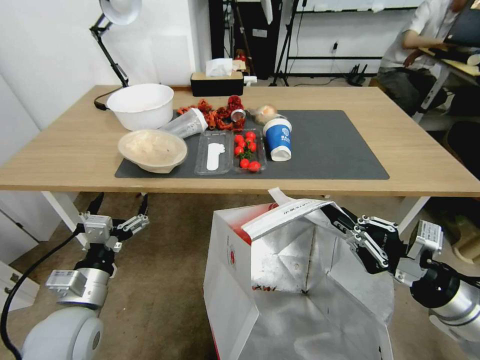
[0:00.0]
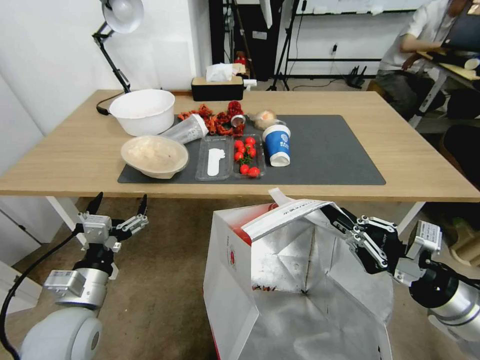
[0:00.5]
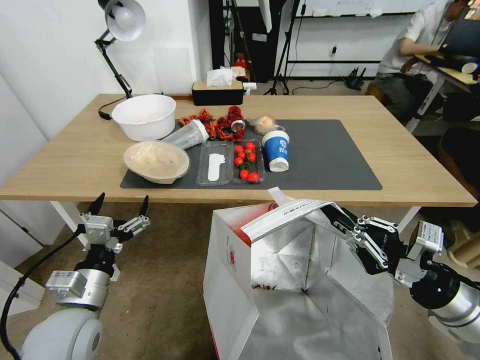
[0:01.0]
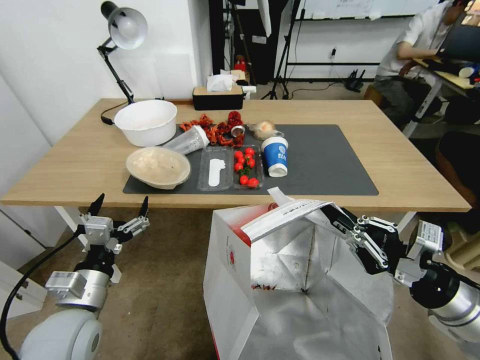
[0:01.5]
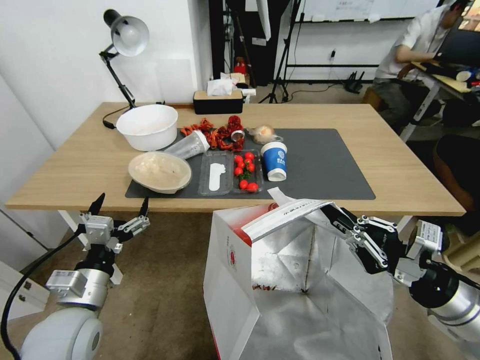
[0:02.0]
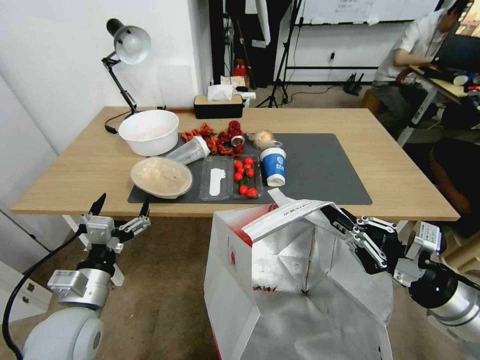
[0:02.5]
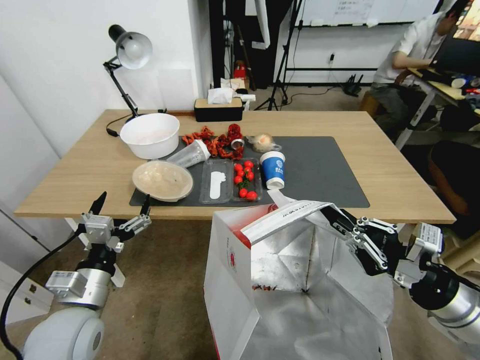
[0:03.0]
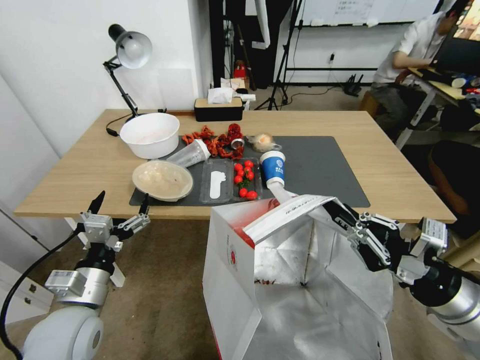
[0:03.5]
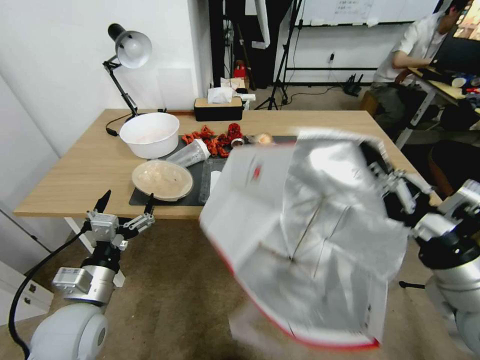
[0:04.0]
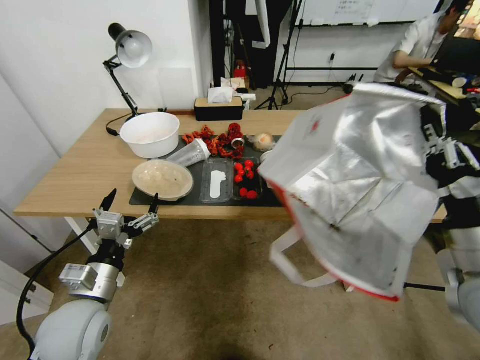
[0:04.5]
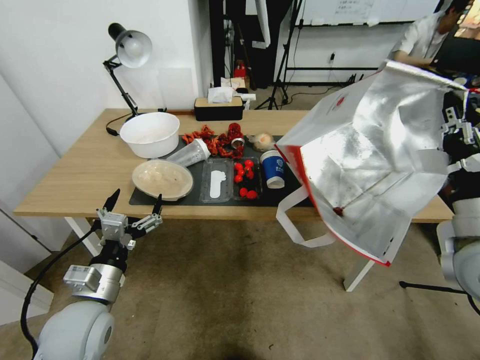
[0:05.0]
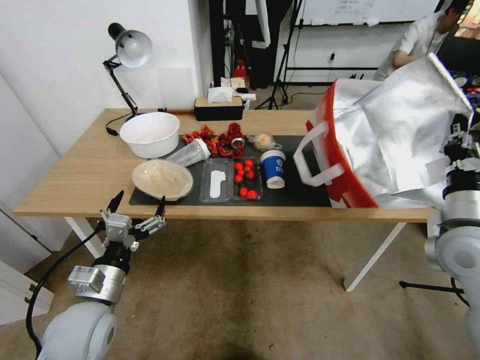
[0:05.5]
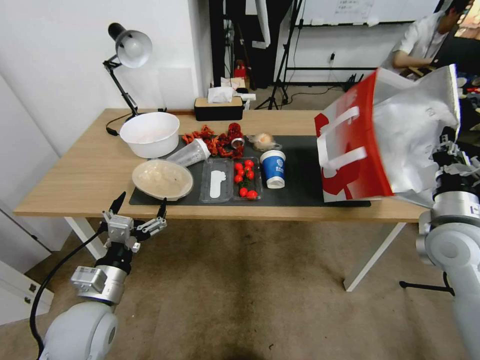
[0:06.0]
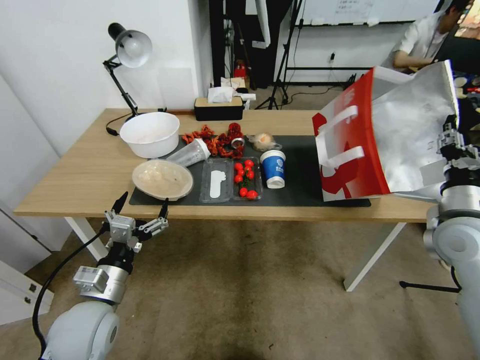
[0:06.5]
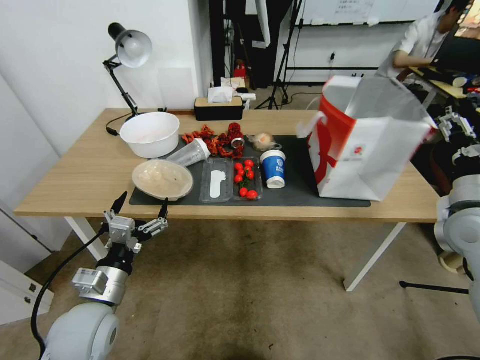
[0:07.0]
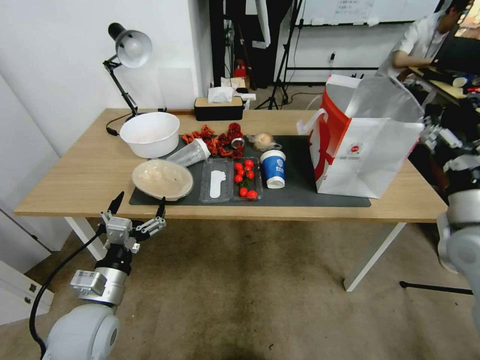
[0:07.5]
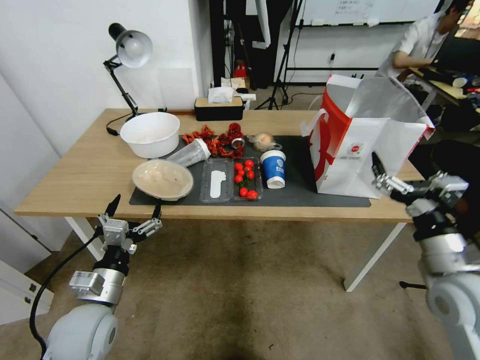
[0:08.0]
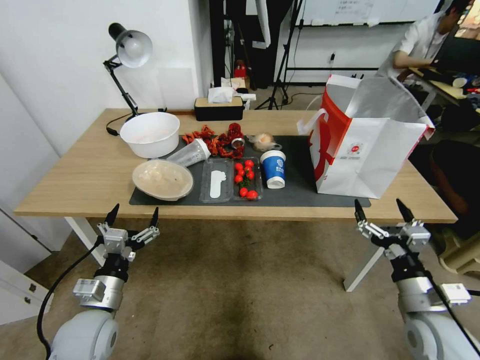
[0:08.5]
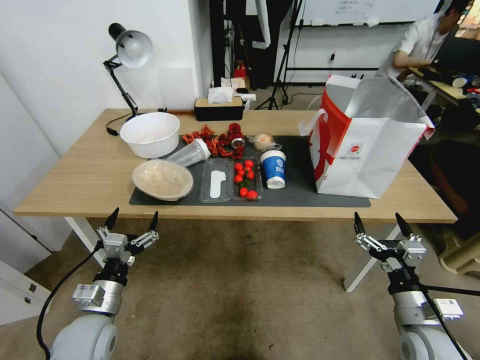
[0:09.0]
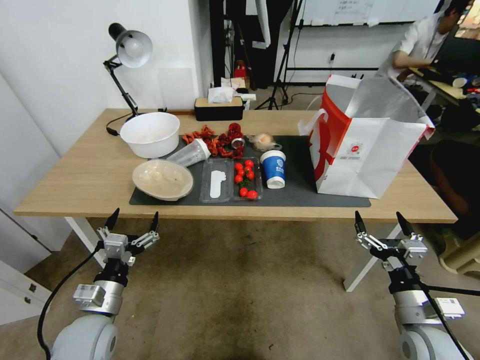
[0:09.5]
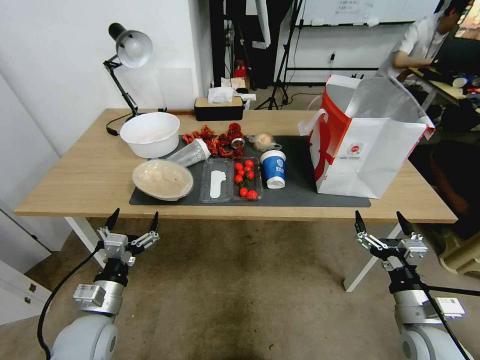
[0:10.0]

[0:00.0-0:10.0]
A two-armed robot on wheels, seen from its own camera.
Task of the whole recording: Pick up the food delivery bag from the floor and place it on the table.
0:04.0 to 0:06.0: The right gripper goes about 10 cm forward.
0:06.0 to 0:08.0: The right gripper moves backward, about 10 cm, and opens up.
0:08.0 to 0:10.0: The right gripper heads downward, covering roughly 10 cm.

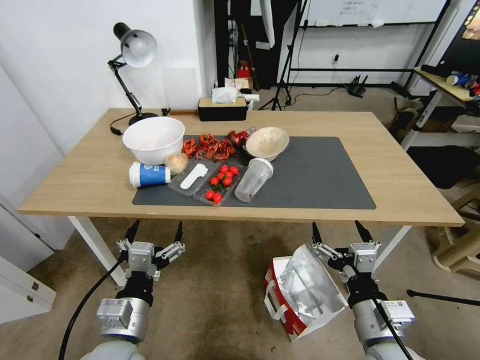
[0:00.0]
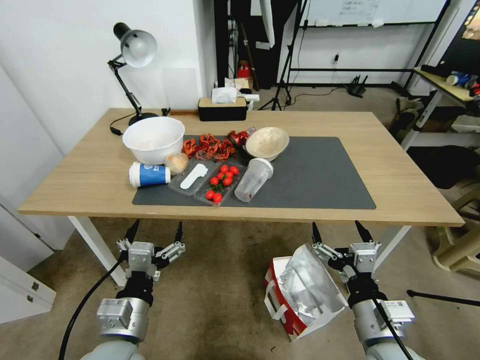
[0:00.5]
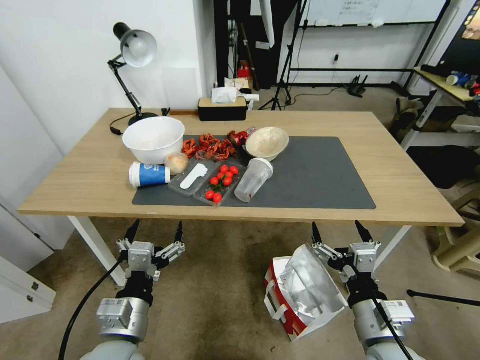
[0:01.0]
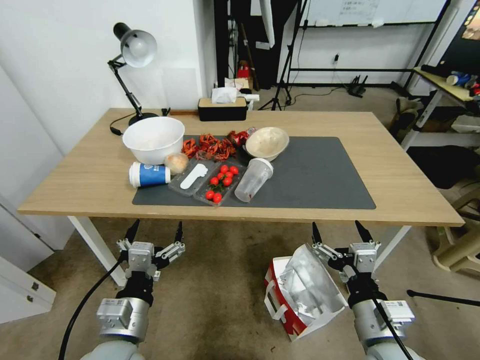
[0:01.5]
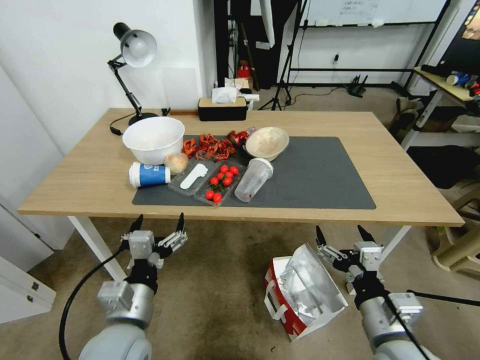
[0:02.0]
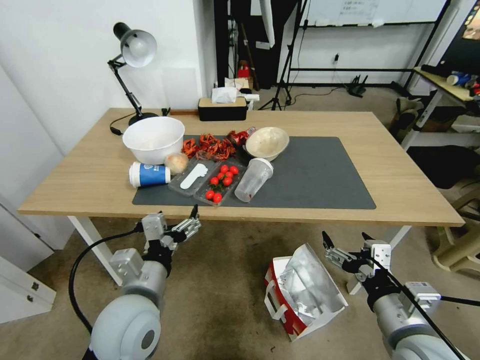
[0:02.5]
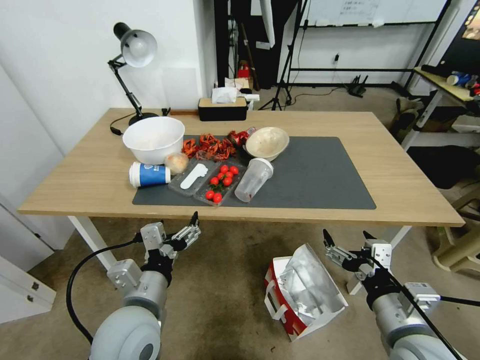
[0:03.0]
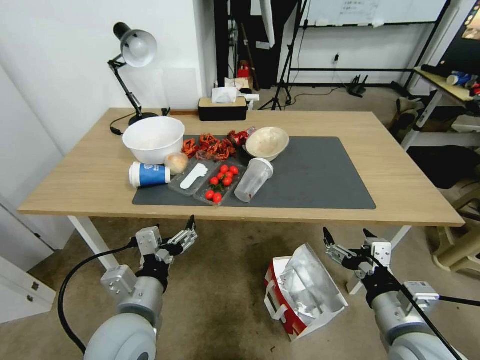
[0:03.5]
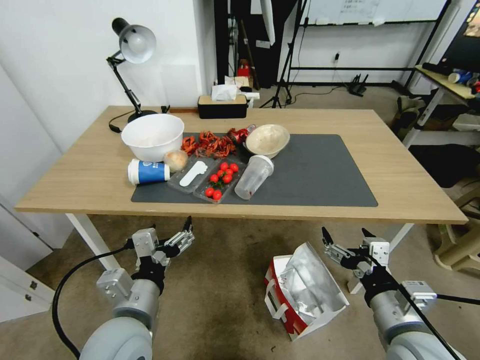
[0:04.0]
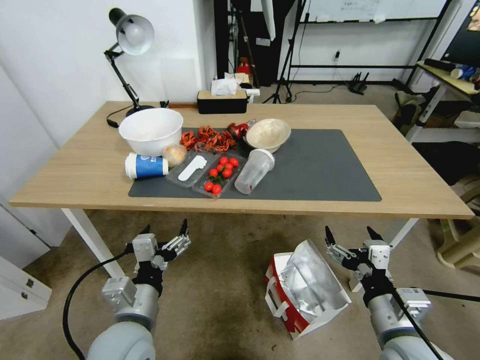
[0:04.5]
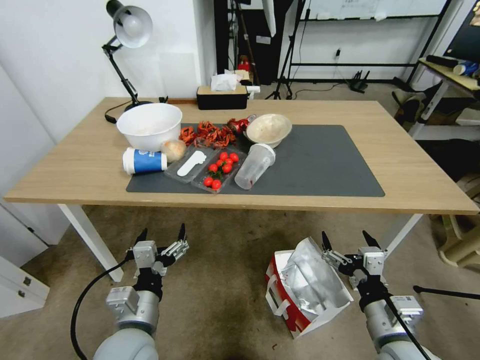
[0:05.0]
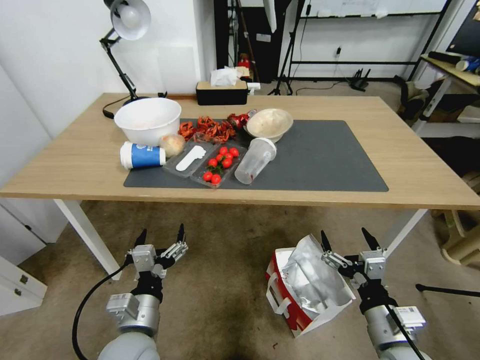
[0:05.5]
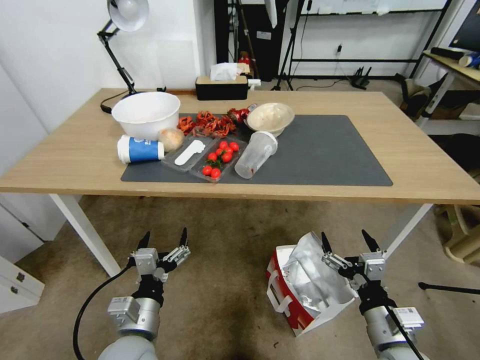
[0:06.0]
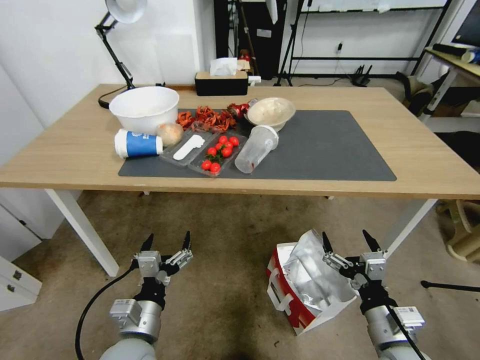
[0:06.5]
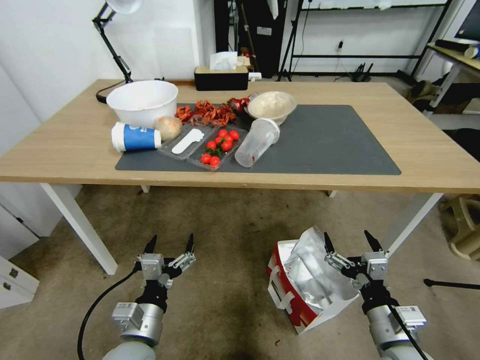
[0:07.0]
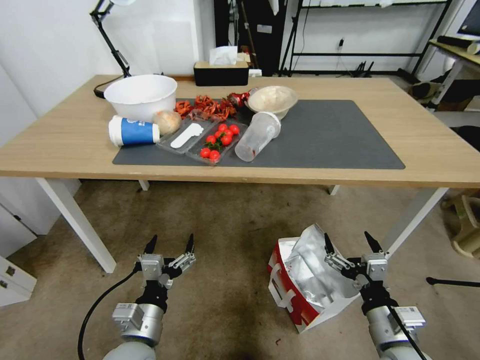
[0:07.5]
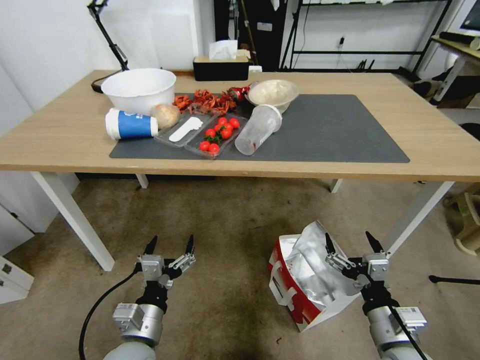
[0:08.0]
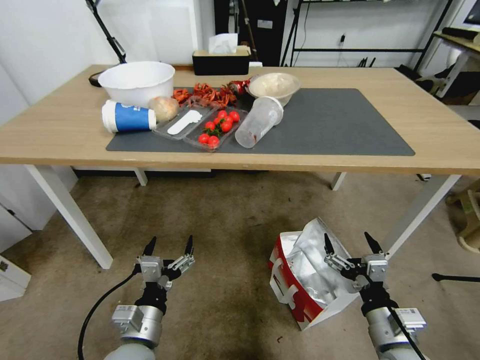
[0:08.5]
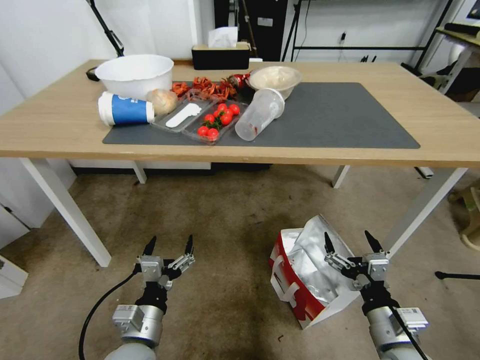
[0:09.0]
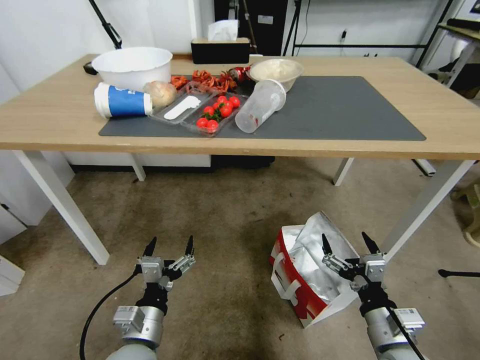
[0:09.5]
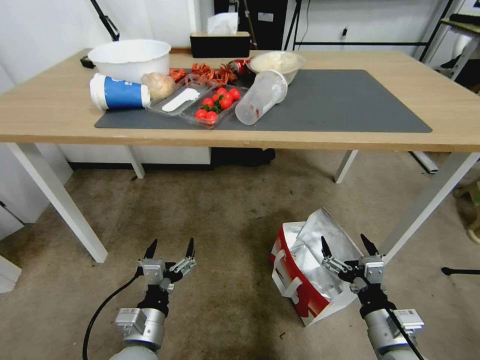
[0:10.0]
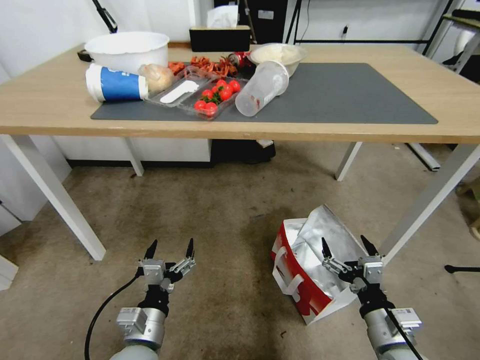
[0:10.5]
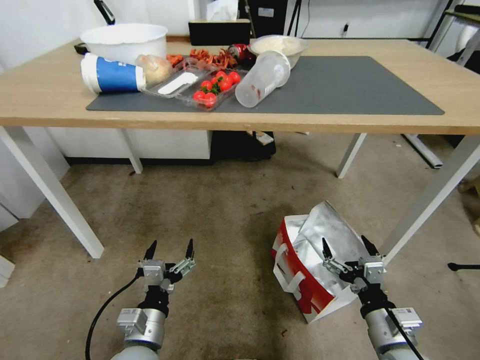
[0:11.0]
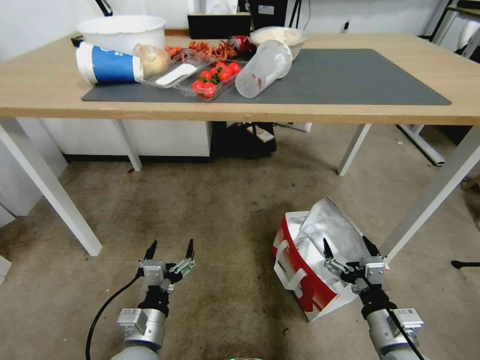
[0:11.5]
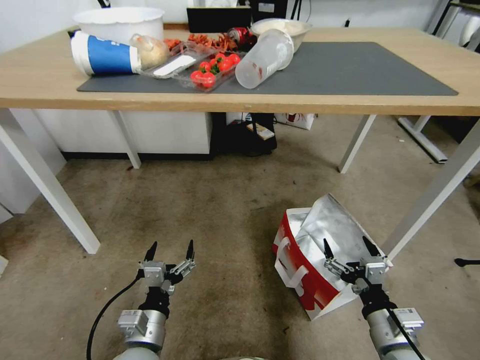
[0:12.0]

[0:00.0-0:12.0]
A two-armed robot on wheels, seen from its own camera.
Task of the whole recording: Pick up the food delivery bag from the floor and place it on the table.
0:04.0 to 0:06.0: The grippers both shift downward by about 10 cm.

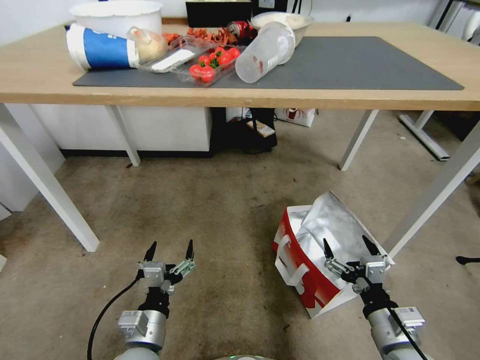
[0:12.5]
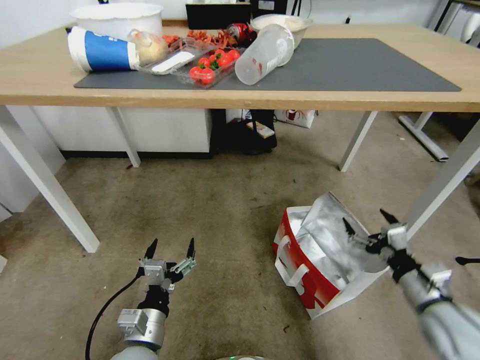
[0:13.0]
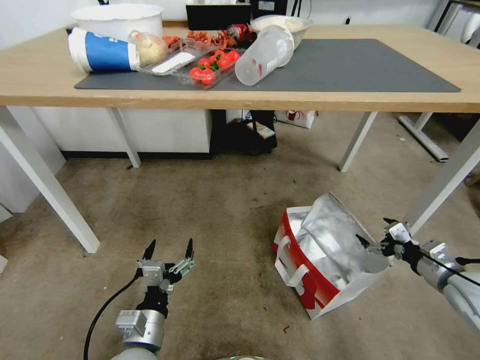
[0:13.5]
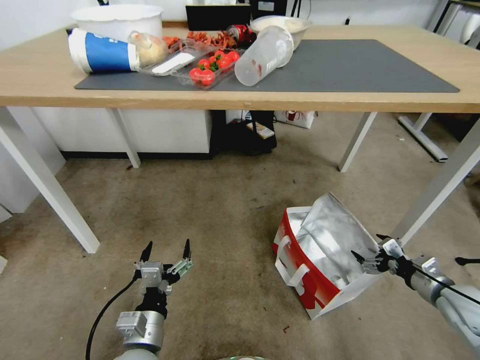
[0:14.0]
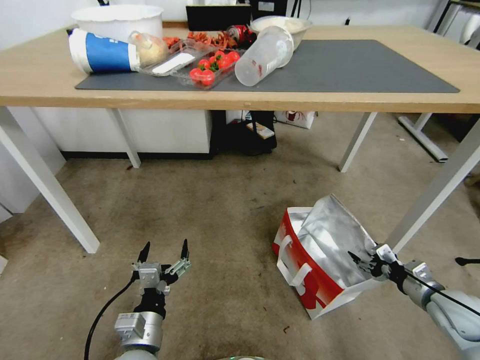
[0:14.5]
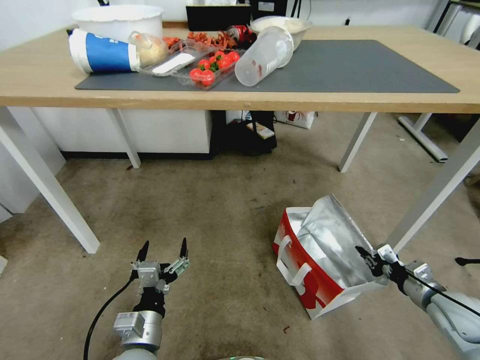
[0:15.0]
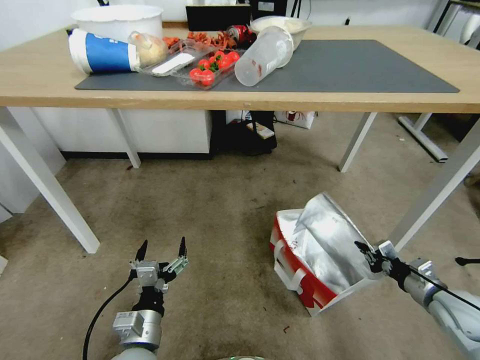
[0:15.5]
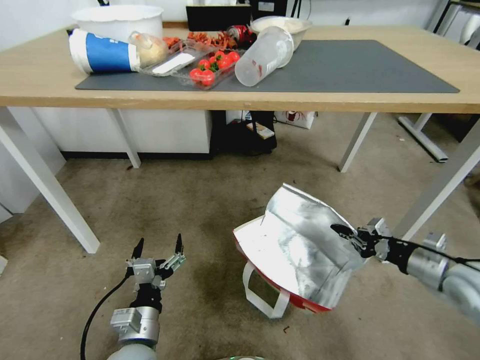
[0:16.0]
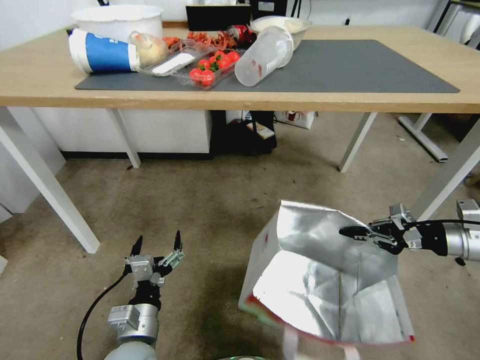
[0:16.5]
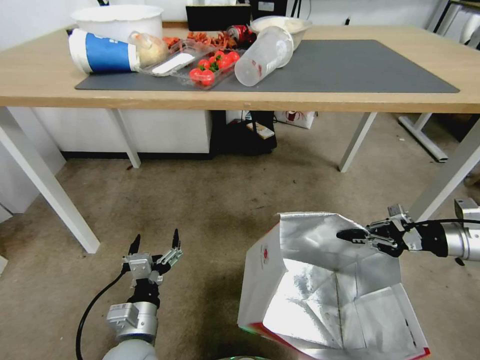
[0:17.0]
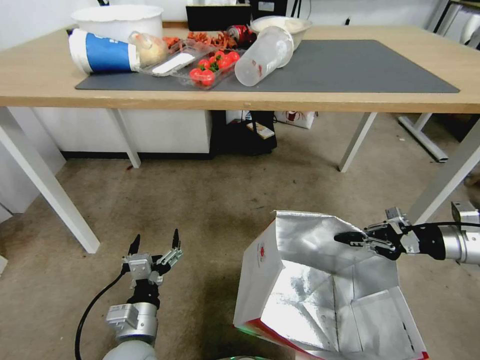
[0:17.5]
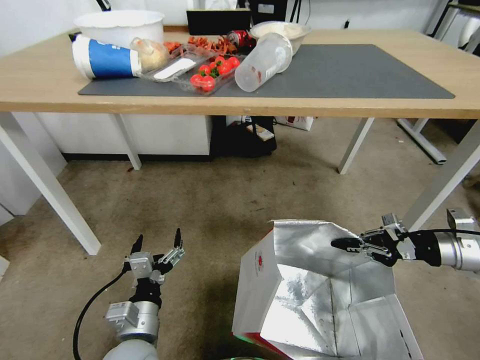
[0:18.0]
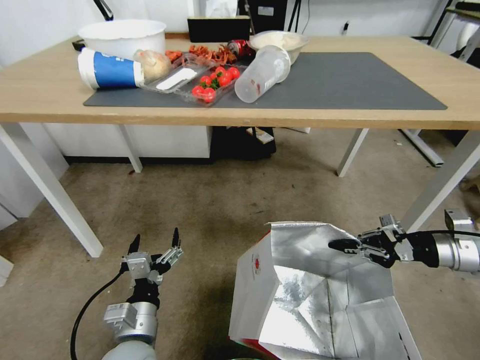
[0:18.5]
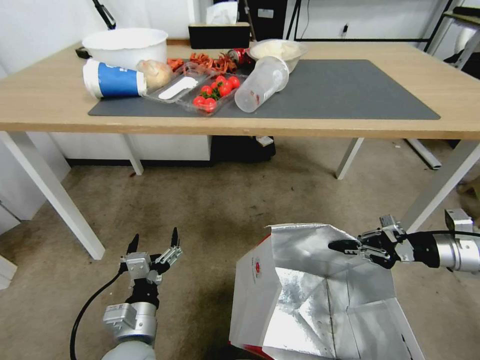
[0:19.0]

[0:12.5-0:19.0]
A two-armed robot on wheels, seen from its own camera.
Task of the whole recording: Pick up the food delivery bag from the floor and place it on the table.
0:12.5 to 0:14.5: The right gripper goes approximately 20 cm to the right and forward.
0:14.5 to 0:17.0: The right gripper goes about 20 cm upward, and closes its fingers.
